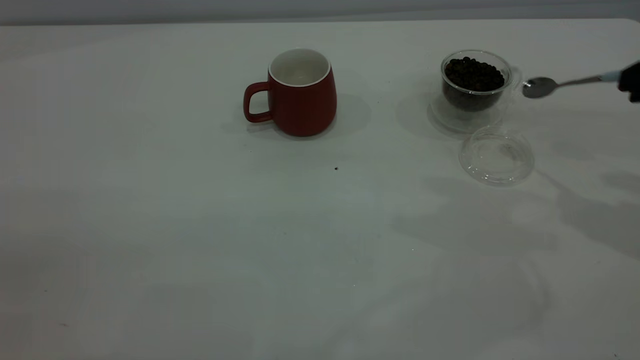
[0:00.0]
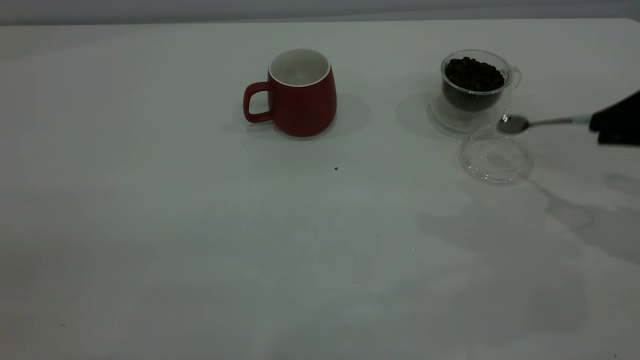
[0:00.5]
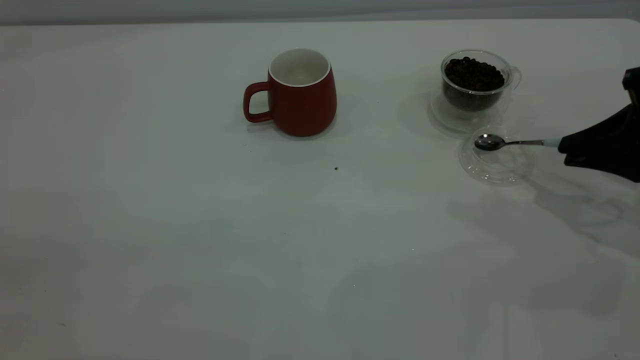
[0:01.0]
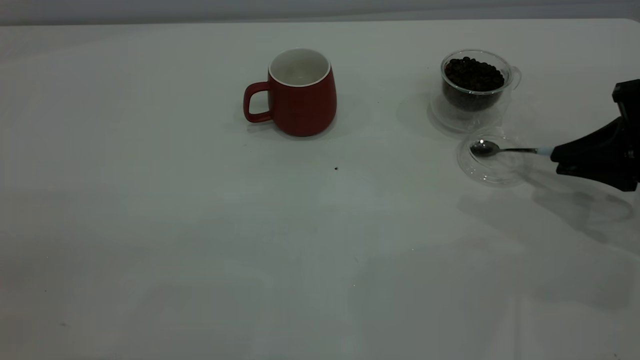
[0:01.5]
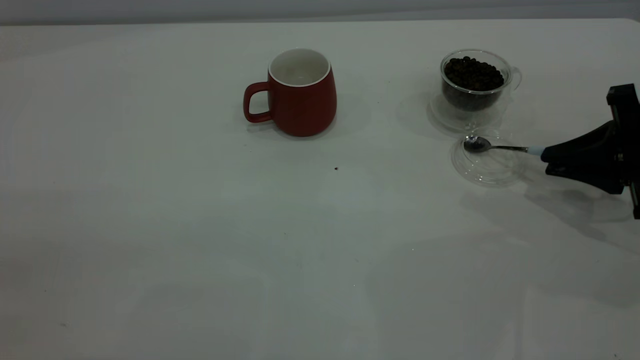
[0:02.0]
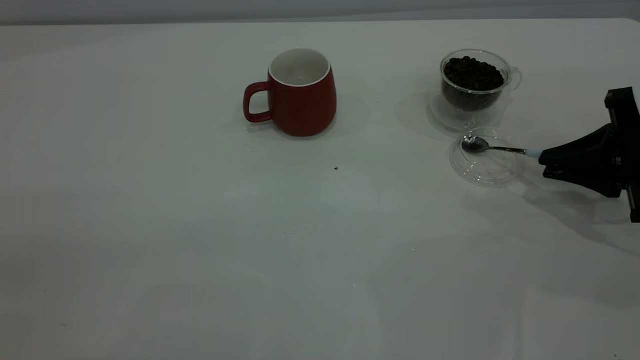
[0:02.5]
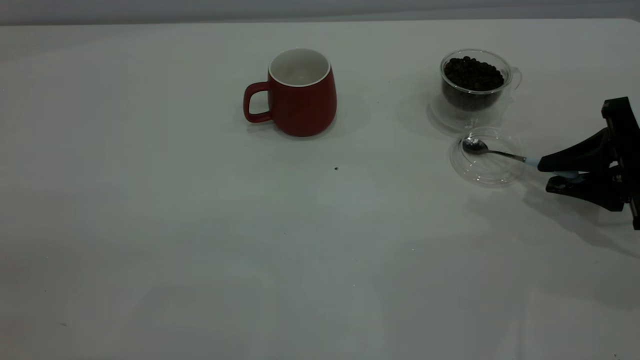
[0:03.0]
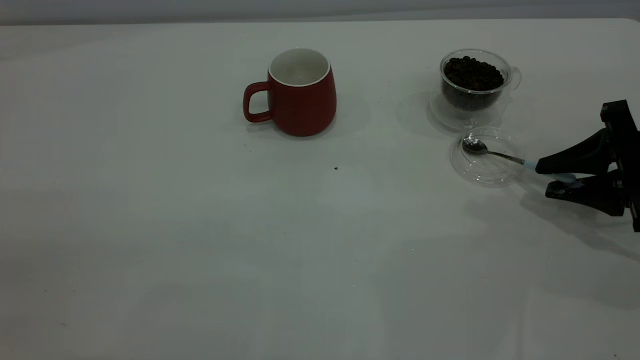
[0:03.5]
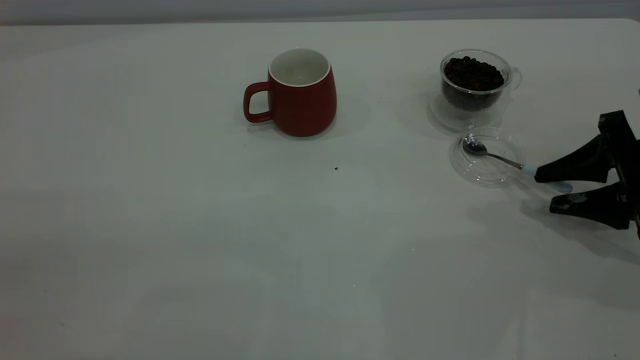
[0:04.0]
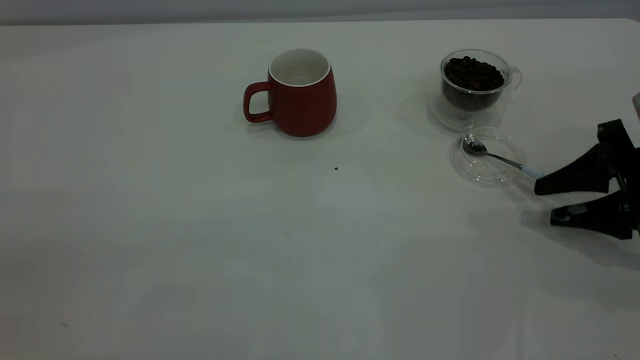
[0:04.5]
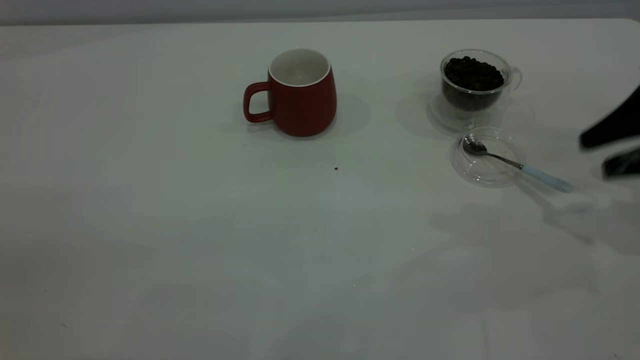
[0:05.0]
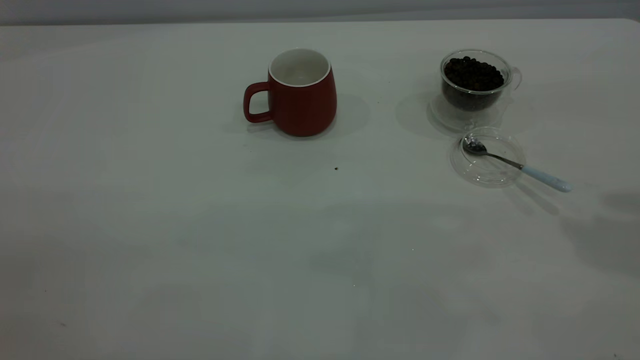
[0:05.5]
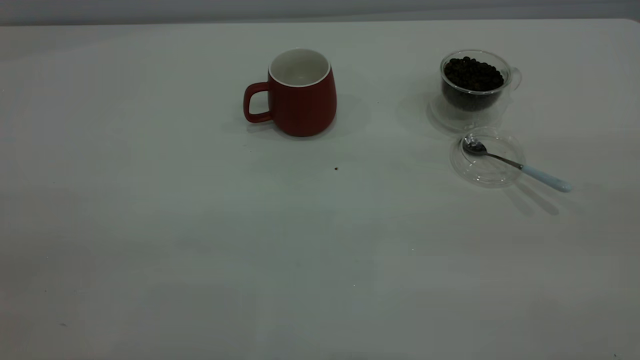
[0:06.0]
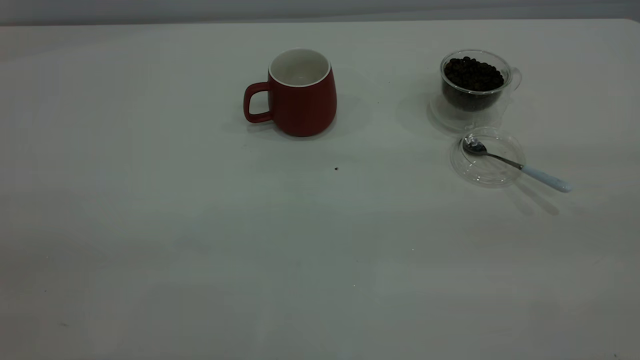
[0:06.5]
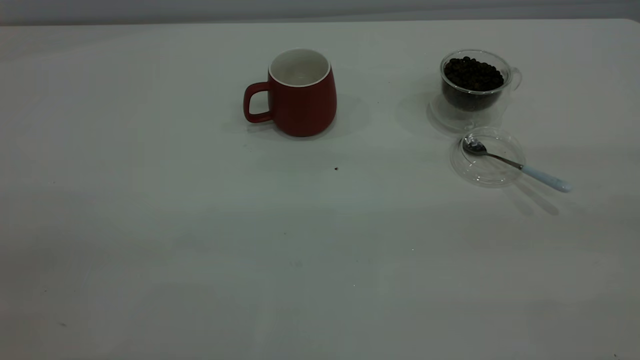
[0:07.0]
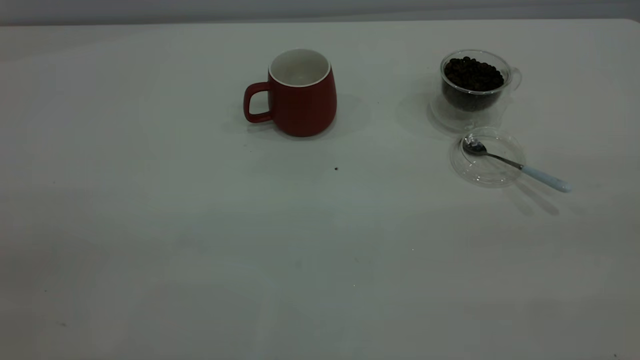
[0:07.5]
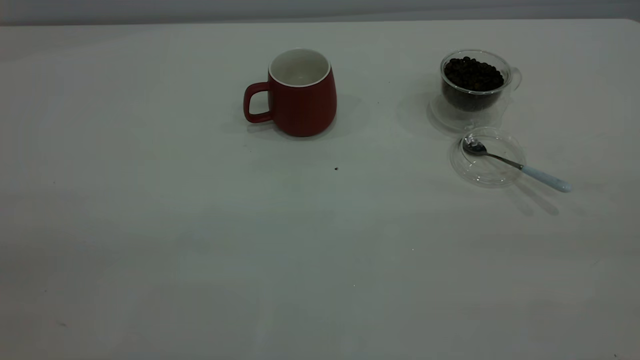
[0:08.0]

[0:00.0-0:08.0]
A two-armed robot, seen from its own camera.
Task of the whole recording: the left gripper place the red cup in the center of the table, the right gripper take the blue spoon from the cup lid and scoop out the coffee beans from the coffee cup and put them into the red cup, the right gripper put the spoon back into the cup lid.
Step, 0:00.0 to 0:04.5: Place the spoon back in its original place.
0:00.0 to 0:02.0: The right gripper heads downward, covering some 15 cm.
0:02.0 to 0:04.0: The right gripper opens up.
0:04.0 to 0:06.0: The right gripper travels upward and backward by about 35 cm.
